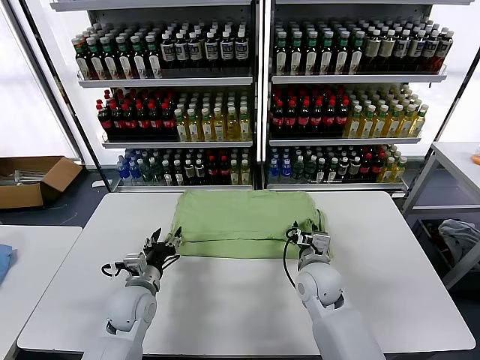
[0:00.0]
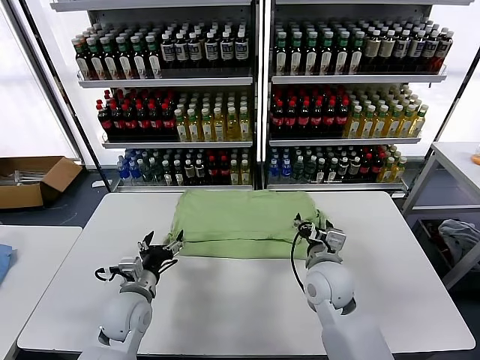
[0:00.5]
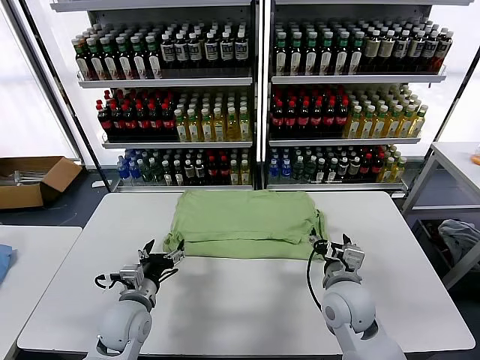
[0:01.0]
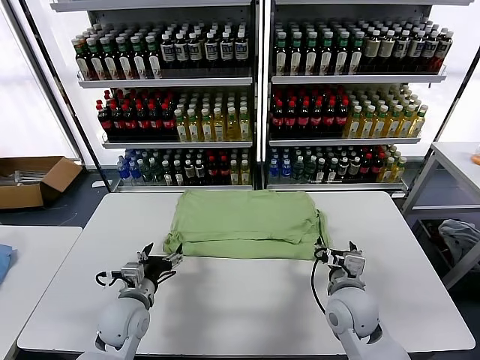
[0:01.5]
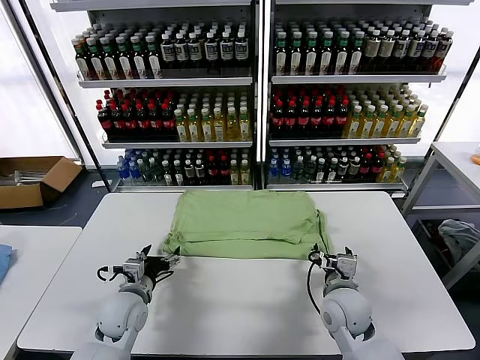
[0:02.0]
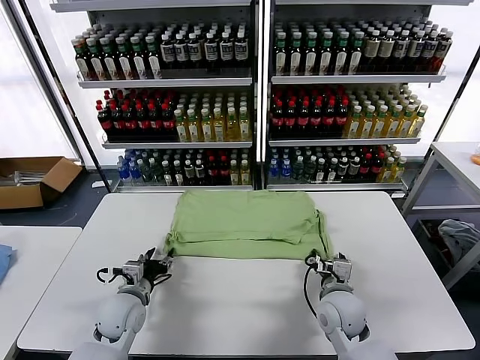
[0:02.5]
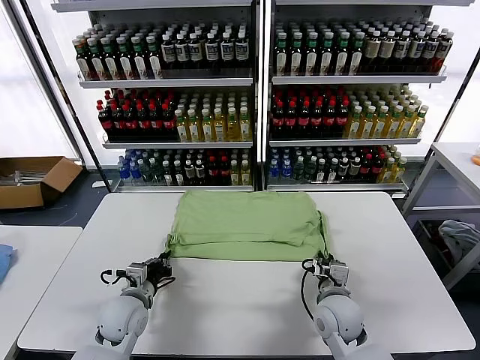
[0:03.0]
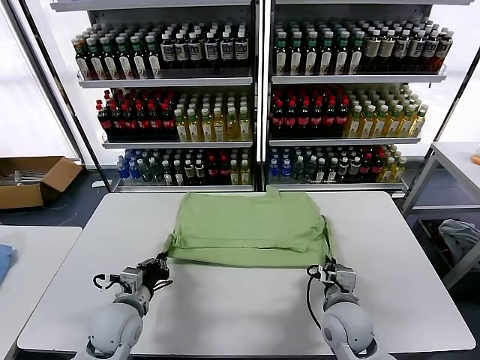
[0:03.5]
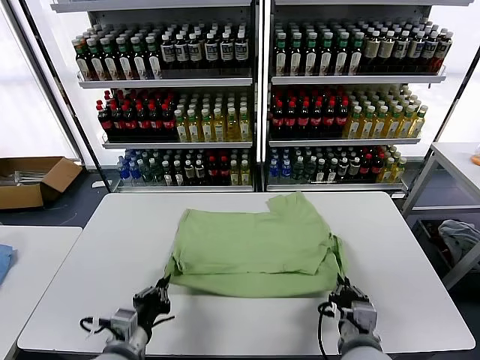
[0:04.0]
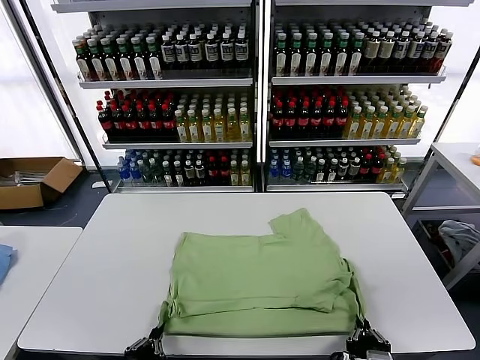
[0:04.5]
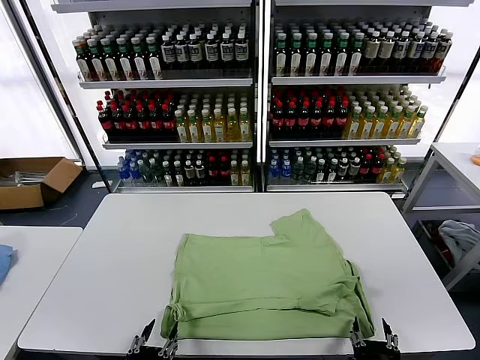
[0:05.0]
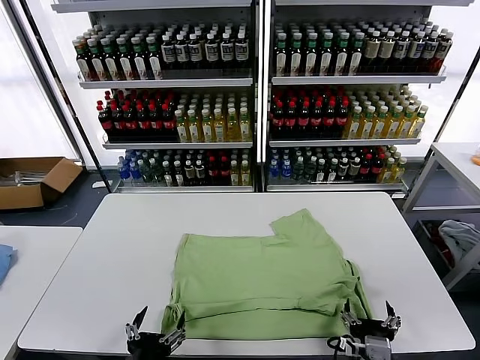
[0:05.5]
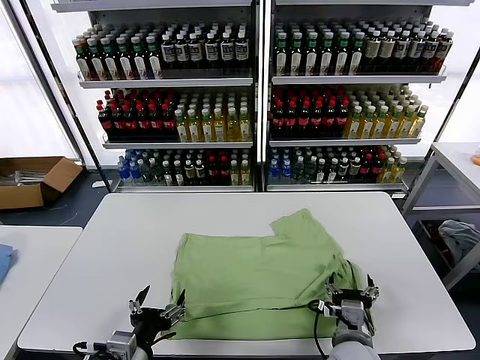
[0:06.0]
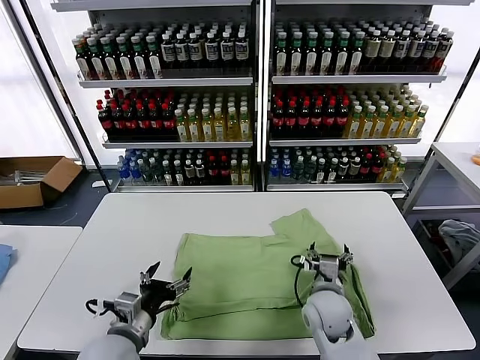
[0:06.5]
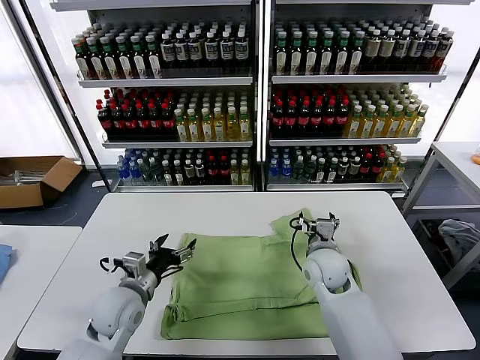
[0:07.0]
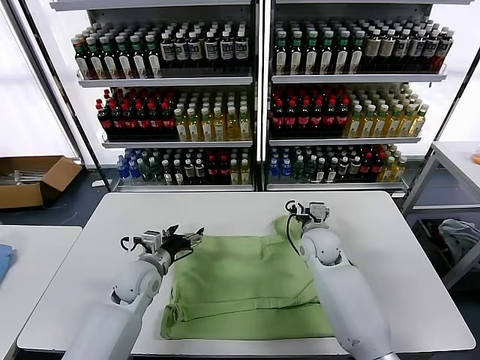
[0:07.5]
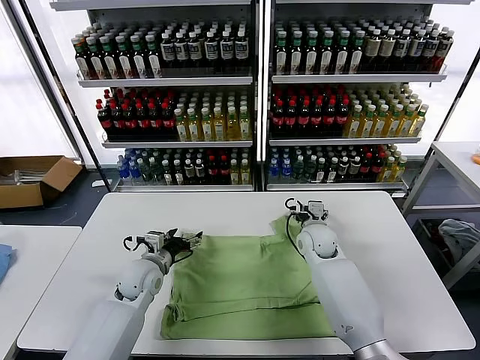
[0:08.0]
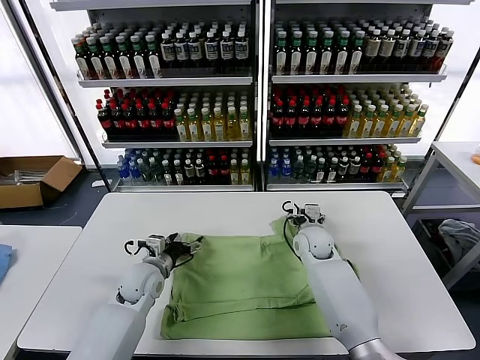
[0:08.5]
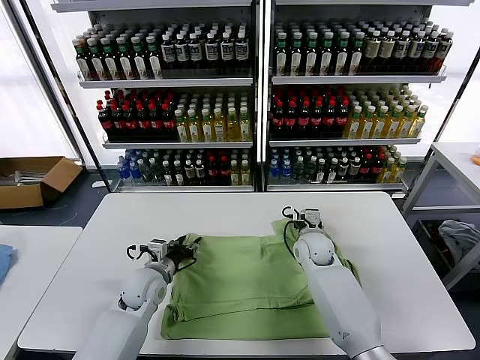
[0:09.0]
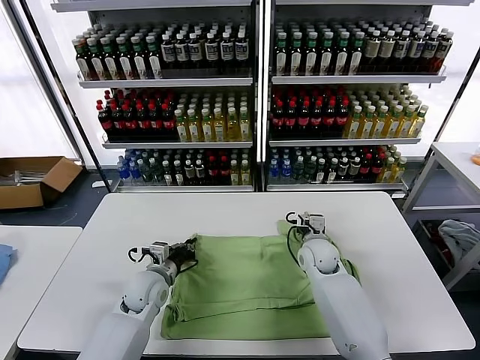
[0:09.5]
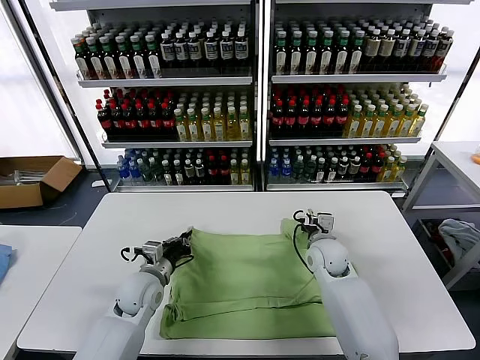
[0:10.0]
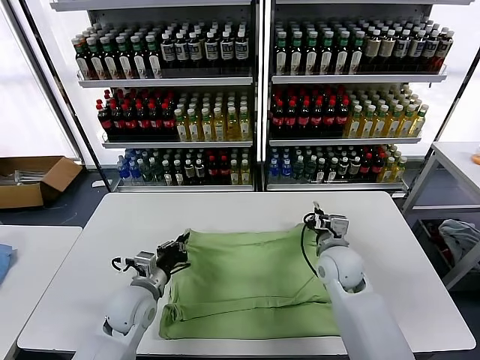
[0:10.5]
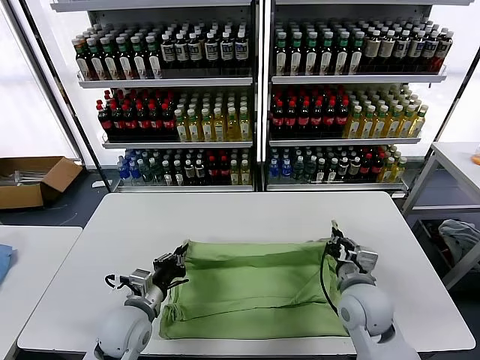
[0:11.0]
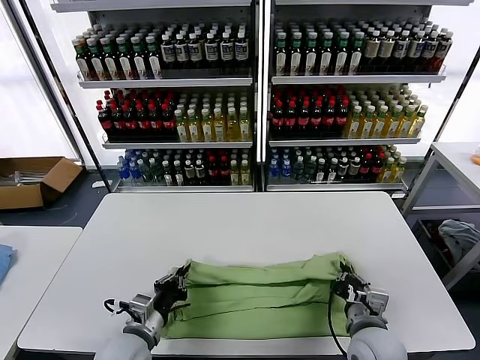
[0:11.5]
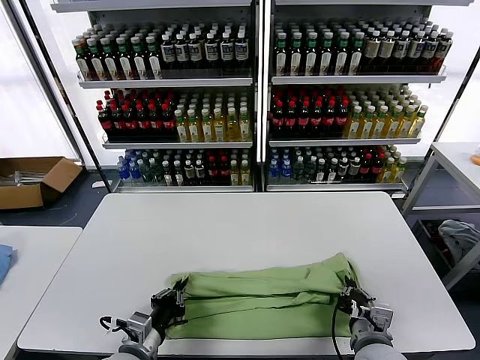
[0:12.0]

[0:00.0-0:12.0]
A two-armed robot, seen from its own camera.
Task of the whole recording: fold and organize the clothes.
Step, 0.5 to 5.0 s: Drag the clothes downward with both gripper.
Step, 5.5 to 9.5 s: use both grippers simultaneously to clamp the upper edge of the clothing fabric.
0.0 to 2.0 s: The right gripper shifts some 5 cm backward.
2.0 to 4.0 s: The two grippers go approximately 15 cm backward. The left gripper closes its fingers, while the right gripper closes.
4.0 to 6.0 s: The left gripper opens its fingers; the right gripper moves about 5 cm, and opens.
6.0 to 8.0 s: Both grippers move forward, approximately 25 cm.
8.0 to 10.0 s: The right gripper changes place by some 5 cm, and closes its fingers; the left gripper closes its fingers.
10.0 to 12.0 s: Both grippers move backward, approximately 20 cm.

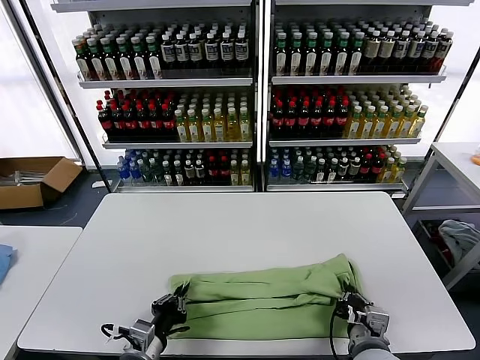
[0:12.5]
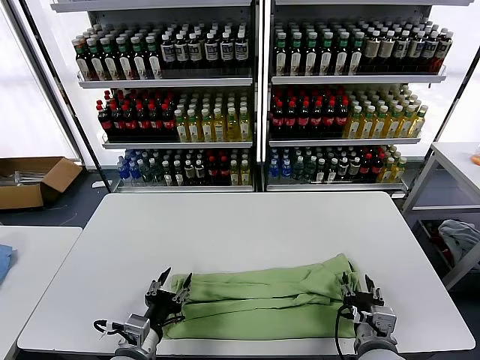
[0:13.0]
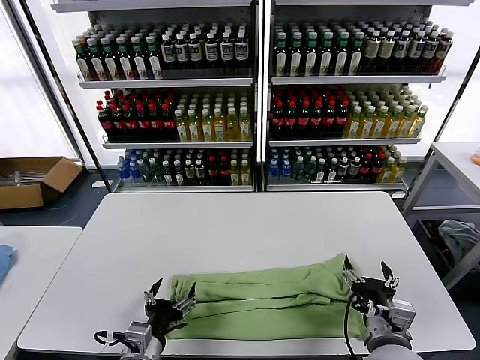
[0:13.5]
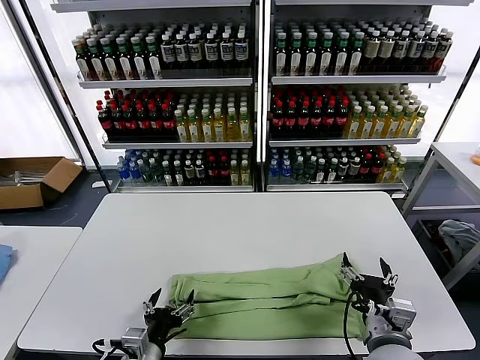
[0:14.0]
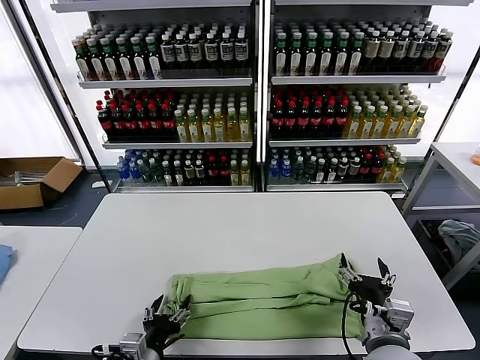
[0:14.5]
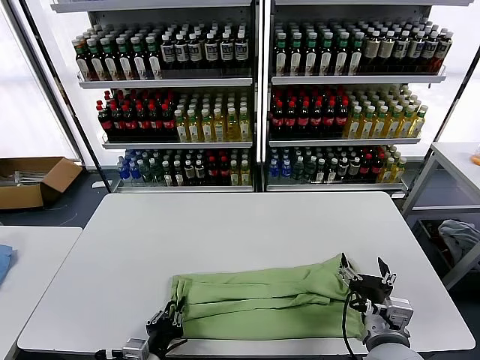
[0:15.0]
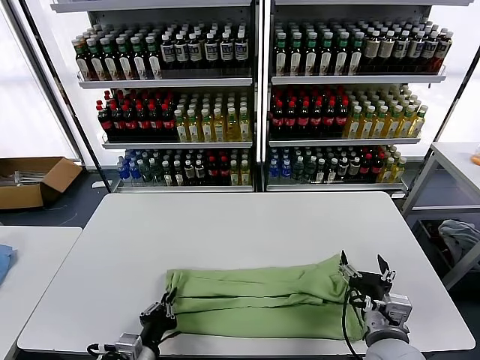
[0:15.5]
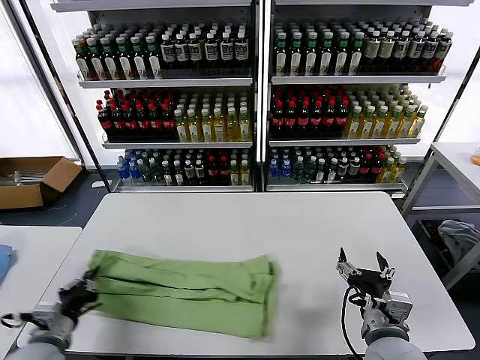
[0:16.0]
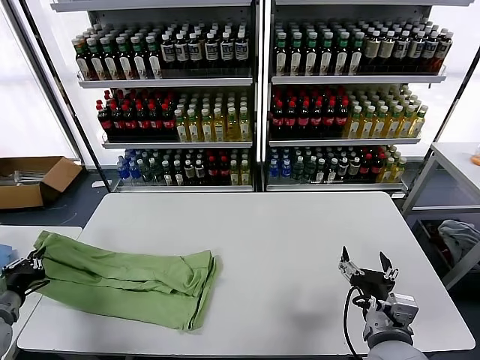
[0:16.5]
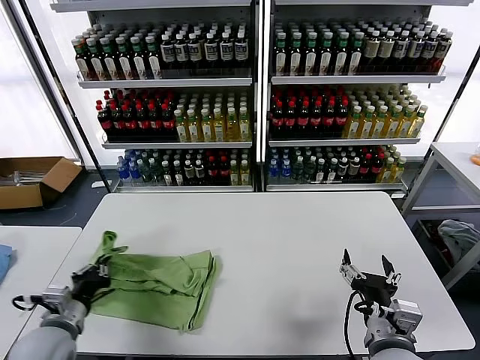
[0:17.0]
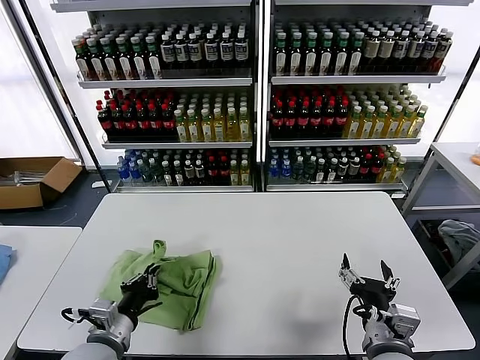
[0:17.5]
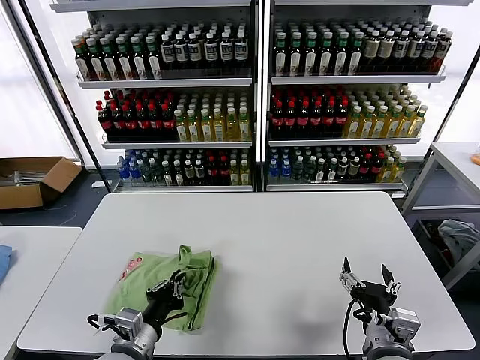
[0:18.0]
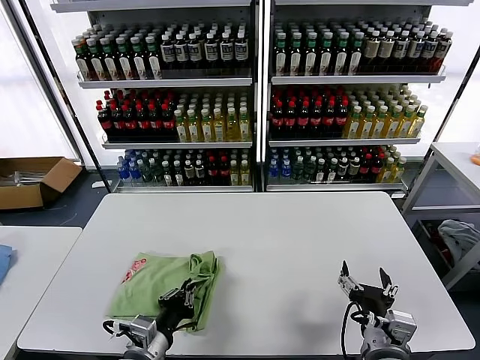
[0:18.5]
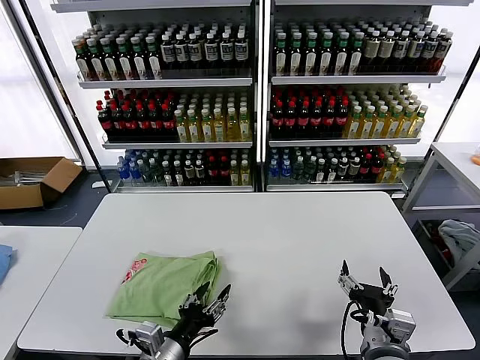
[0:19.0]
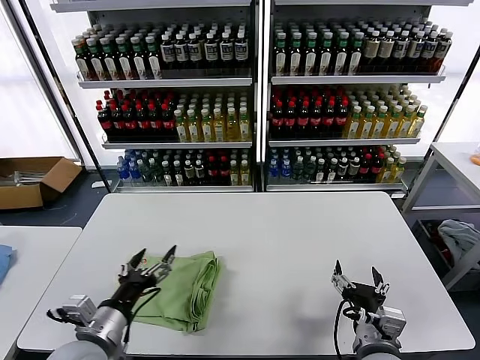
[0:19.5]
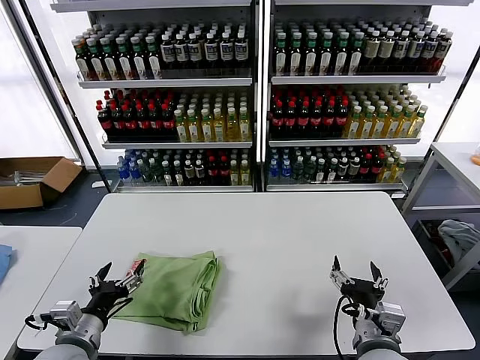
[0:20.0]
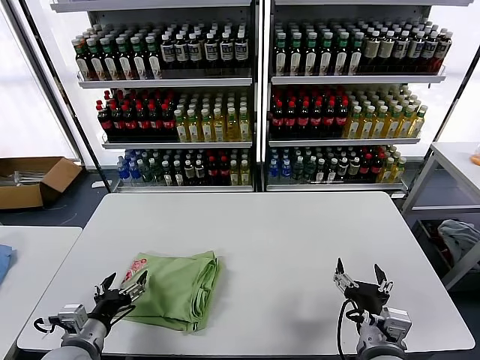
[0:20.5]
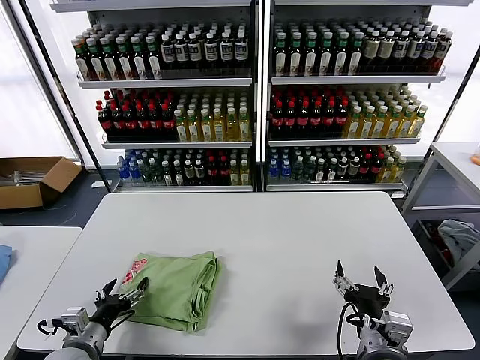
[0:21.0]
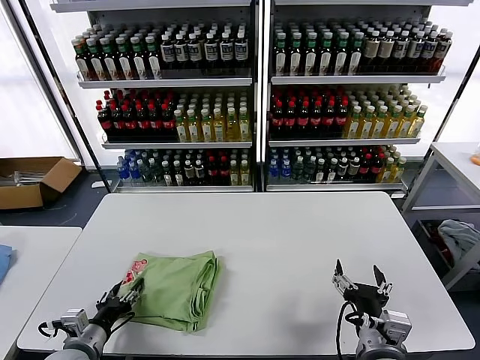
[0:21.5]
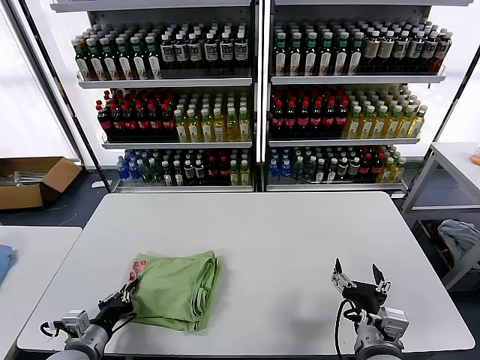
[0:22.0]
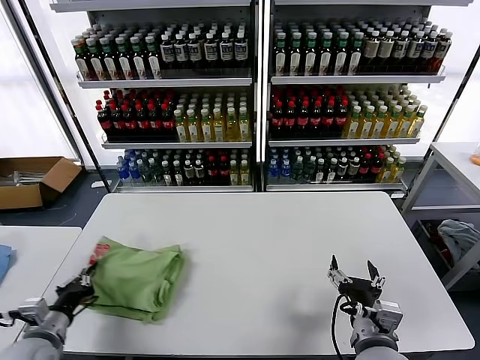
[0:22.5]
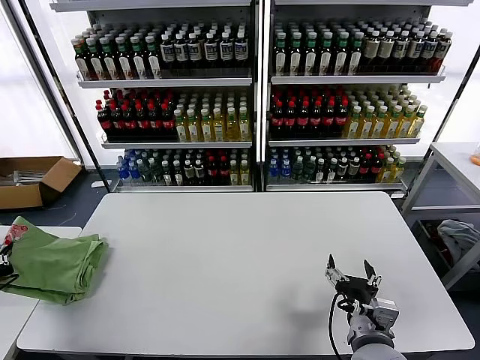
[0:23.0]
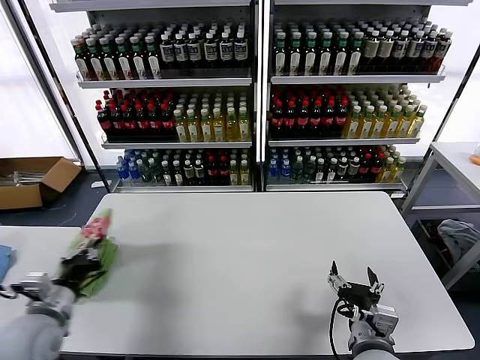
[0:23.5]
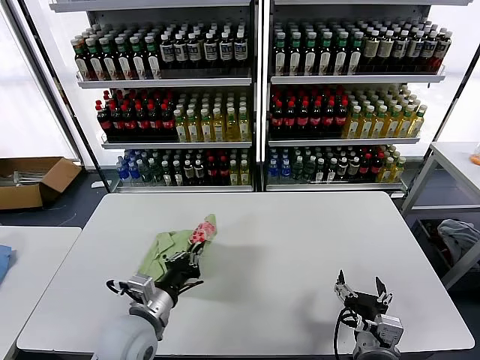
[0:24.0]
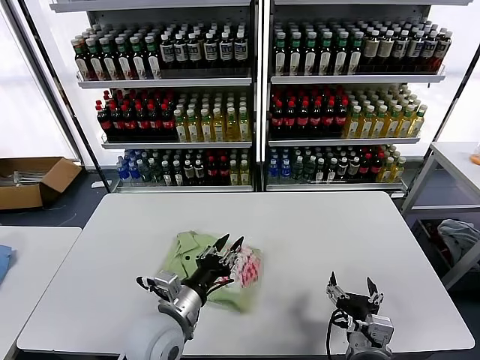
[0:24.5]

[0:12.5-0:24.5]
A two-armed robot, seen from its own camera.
Task of the whole recording: fold and organize the clothes.
Step, 13.0 to 15.0 s: use the left gripper to clamp the left edge of the fabric.
Step, 15.5 to 18.5 s: use the left gripper to drag the left edge of the fabric to the left and folds it over the right edge.
Step, 19.0 to 24.5 s: Flip the folded clothes over with left gripper.
12.5 to 14.5 s: The left gripper opens its fingers. The right gripper travels upward by roughly 5 cm, and opens.
14.5 to 16.5 s: The left gripper shifts approximately 30 cm to the left, and closes up.
16.5 to 18.5 s: The left gripper is displaced to the right by some 30 cm.
18.5 to 20.5 s: The left gripper travels to the left by about 10 cm, and opens.
20.5 to 22.5 s: The left gripper is displaced to the left by approximately 5 cm, and closes its fingers.
22.5 to 24.5 s: The left gripper moves to the right, some 25 cm, and opens its fingers.

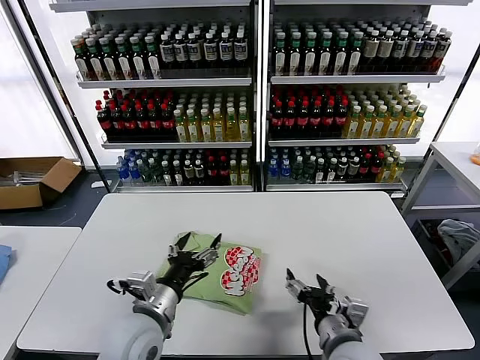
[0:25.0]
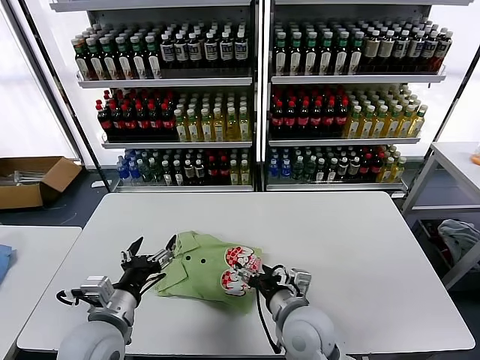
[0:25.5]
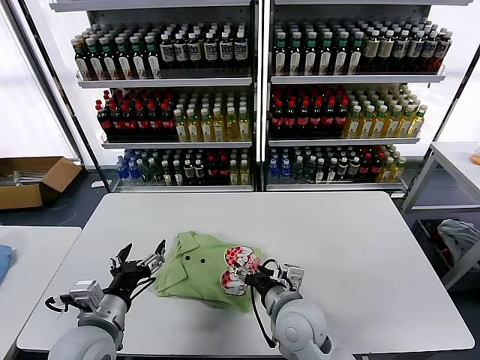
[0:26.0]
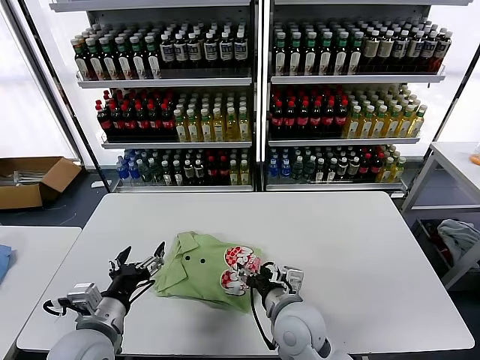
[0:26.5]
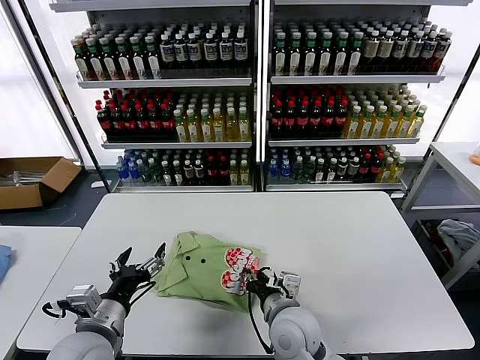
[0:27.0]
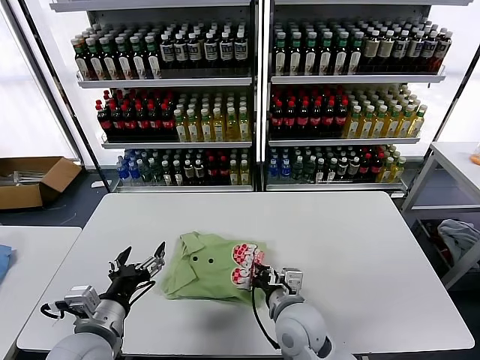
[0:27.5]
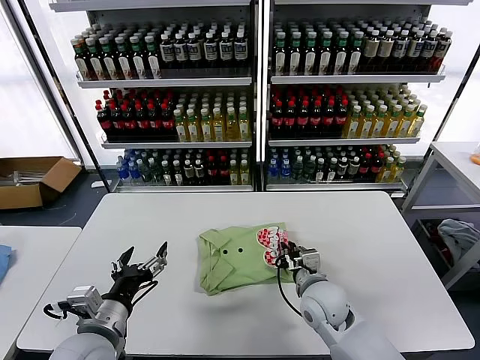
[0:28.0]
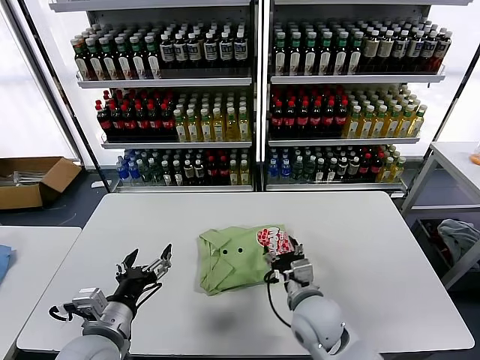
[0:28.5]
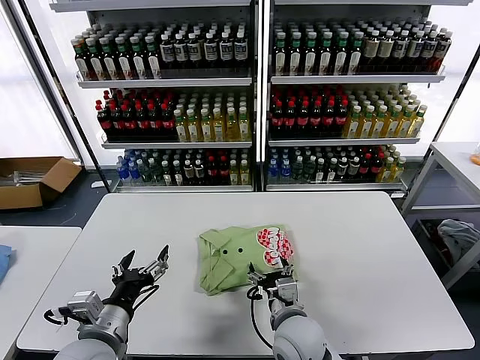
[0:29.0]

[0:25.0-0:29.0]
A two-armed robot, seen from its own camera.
Task of the whole recording: fold and organize the clothes.
25.0 to 27.0 s: The left gripper shifts some 10 cm to the left; the right gripper goes roughly 10 cm to the left and forward, and closes.
27.0 to 29.0 s: The right gripper opens.
